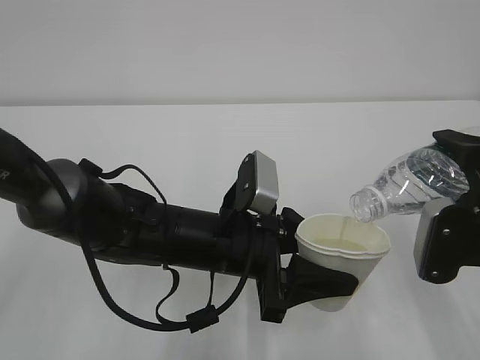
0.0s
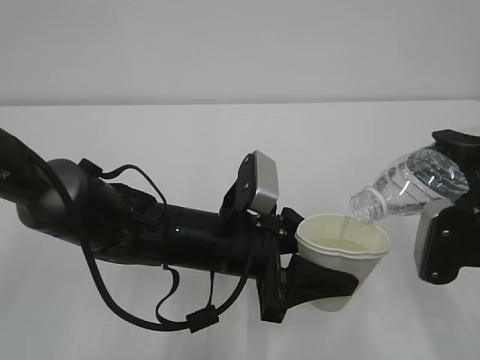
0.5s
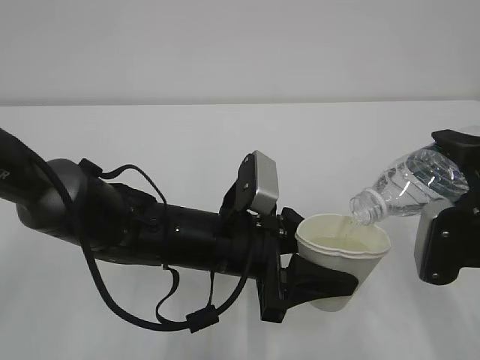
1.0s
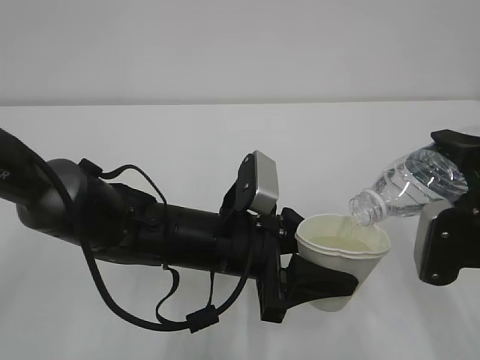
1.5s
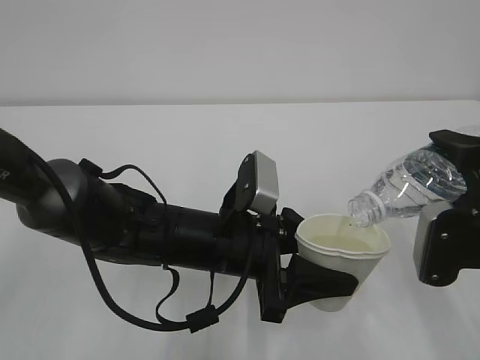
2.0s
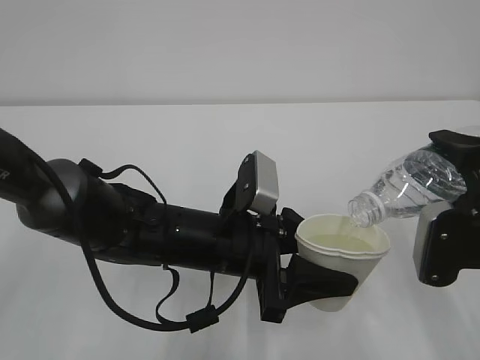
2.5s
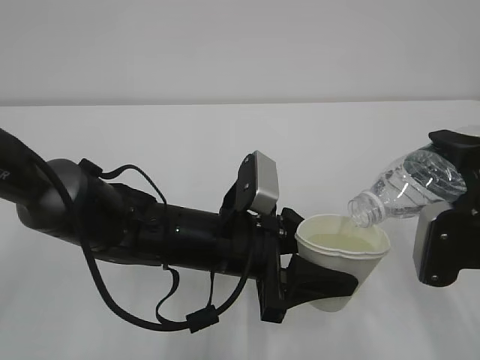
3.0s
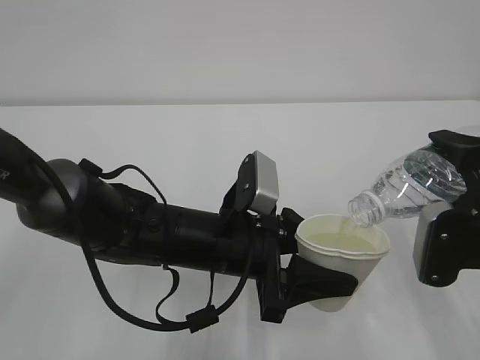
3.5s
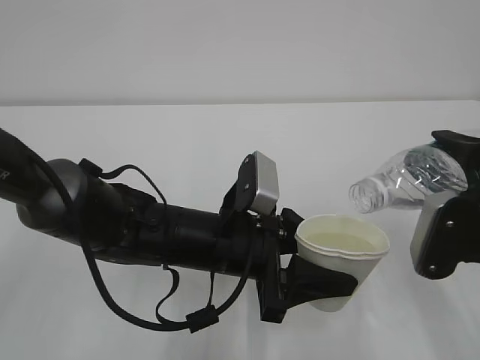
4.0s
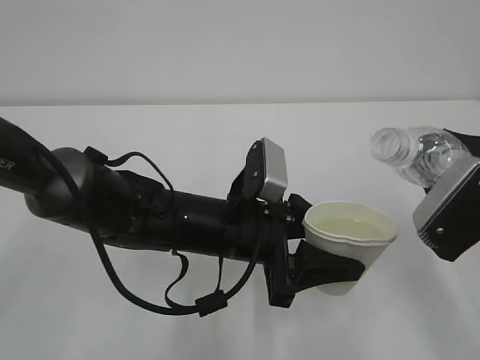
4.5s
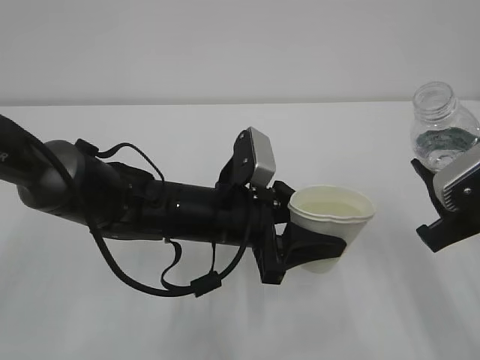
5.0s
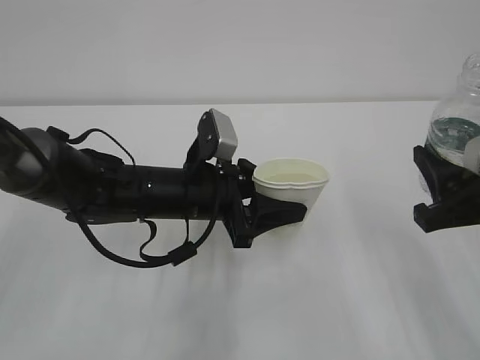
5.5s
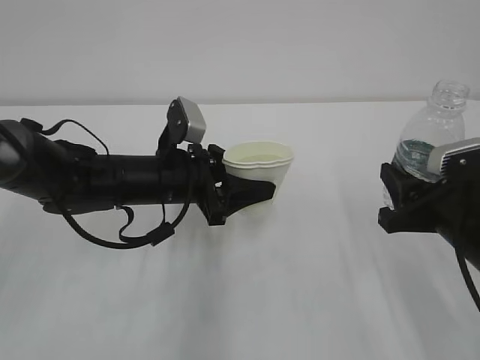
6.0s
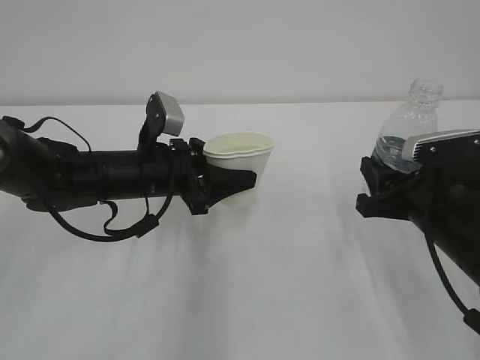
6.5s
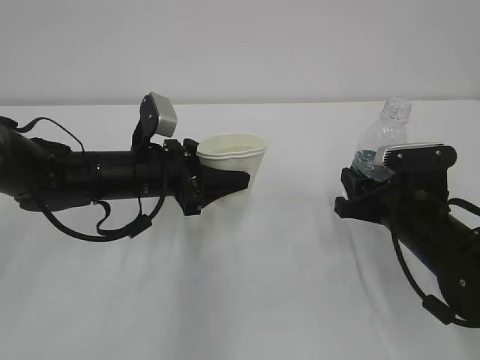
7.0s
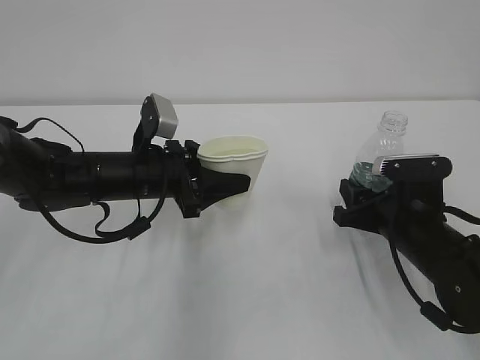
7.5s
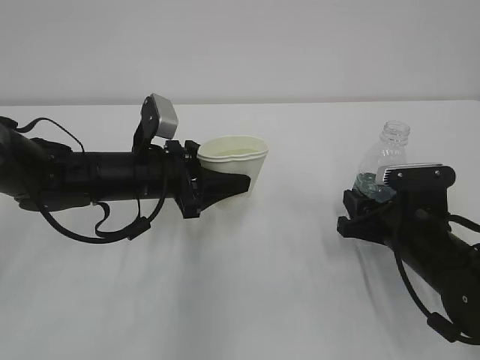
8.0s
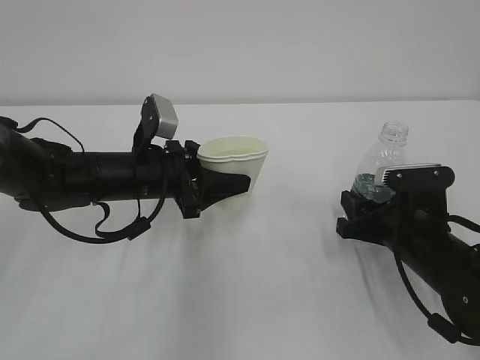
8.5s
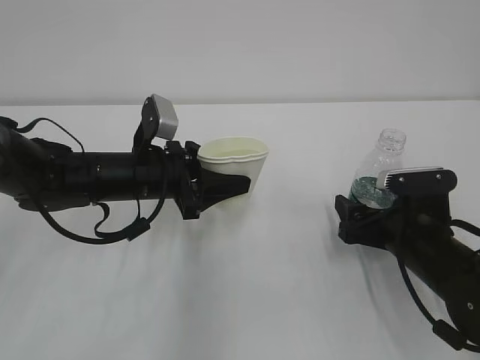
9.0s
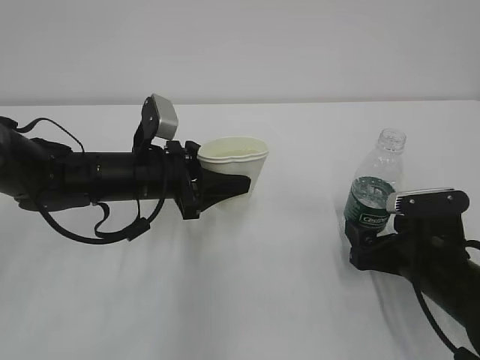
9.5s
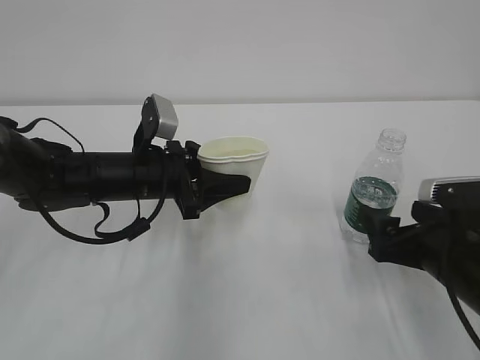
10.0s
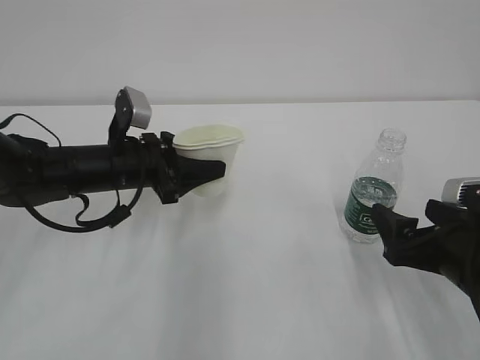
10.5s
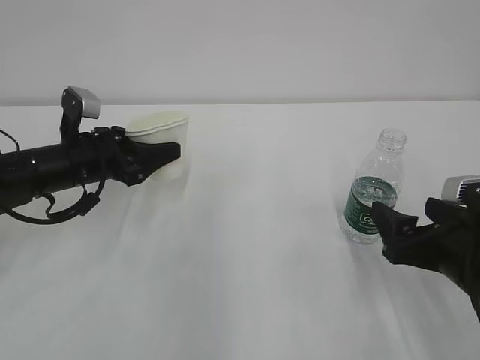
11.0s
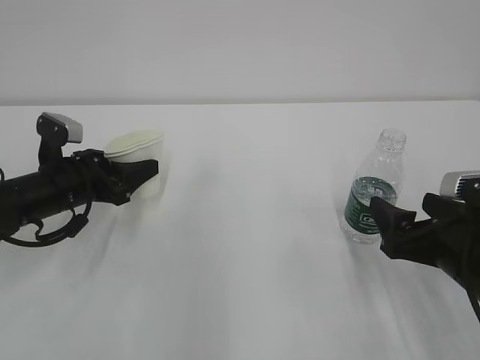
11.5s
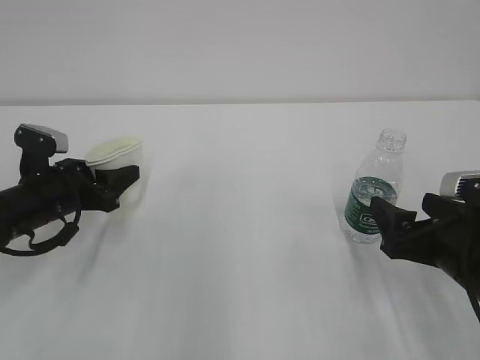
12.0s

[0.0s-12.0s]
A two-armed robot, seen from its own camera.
0.0s to 2.0s: The two grippers keep their place.
2.0s to 4.0s: The grippers make only small movements.
4.0s to 6.0s: The left gripper shifts some 10 cm forward and to the left.
6.0s to 8.0s: The right gripper goes about 10 cm downward and forward.
8.0s to 10.0s: The right gripper travels backward by approximately 5 cm, and opens up.
10.0s to 12.0s: The left gripper heads to the left, covering approximately 10 cm.

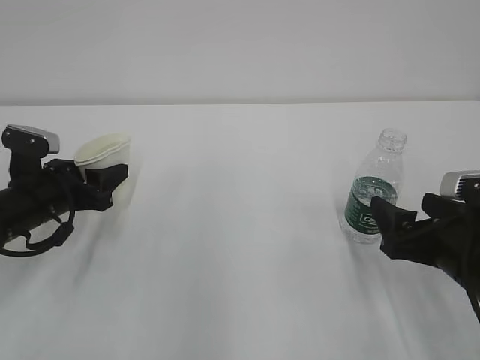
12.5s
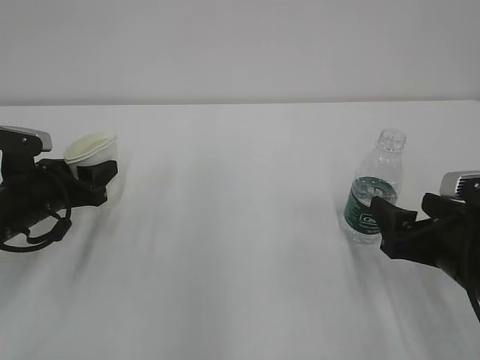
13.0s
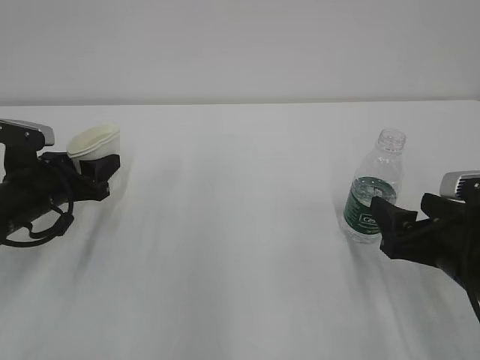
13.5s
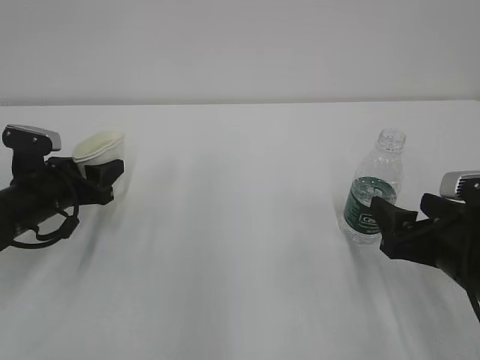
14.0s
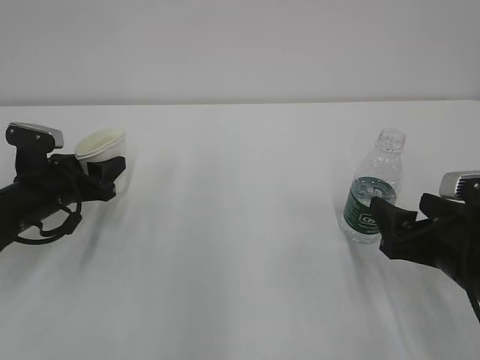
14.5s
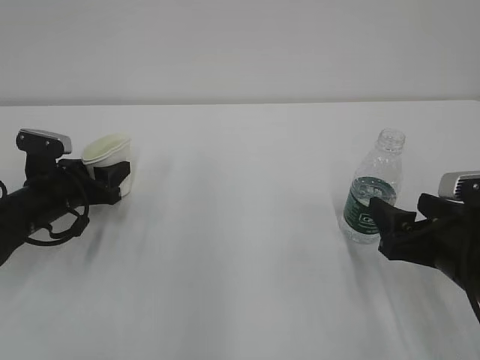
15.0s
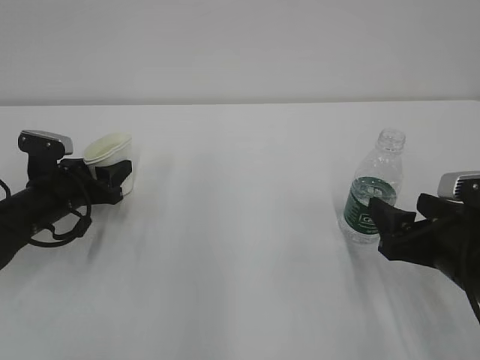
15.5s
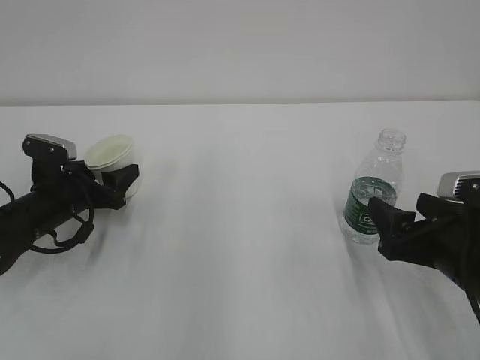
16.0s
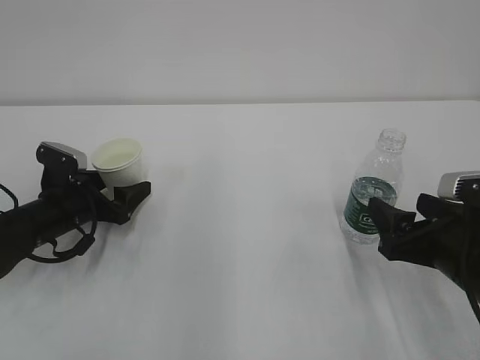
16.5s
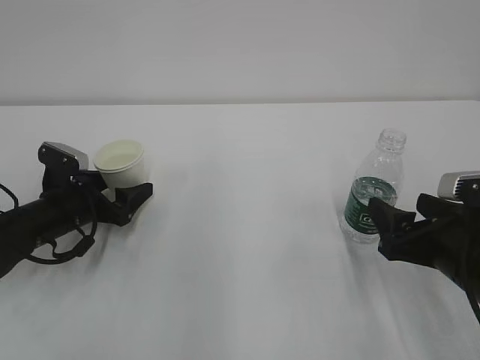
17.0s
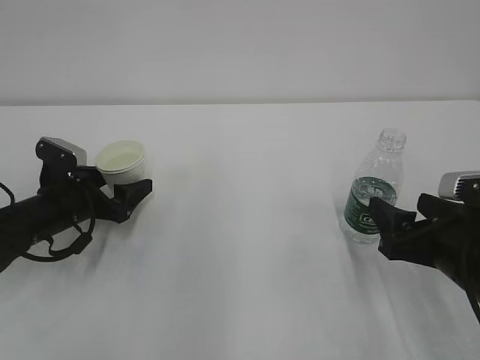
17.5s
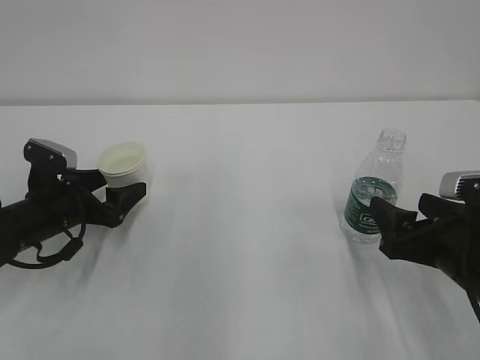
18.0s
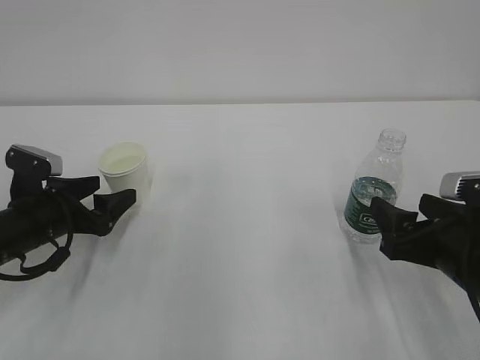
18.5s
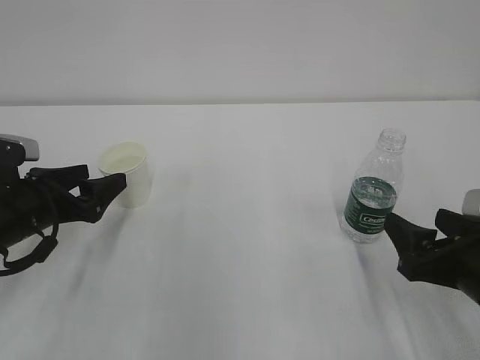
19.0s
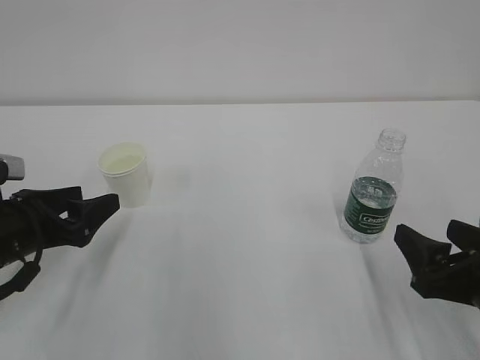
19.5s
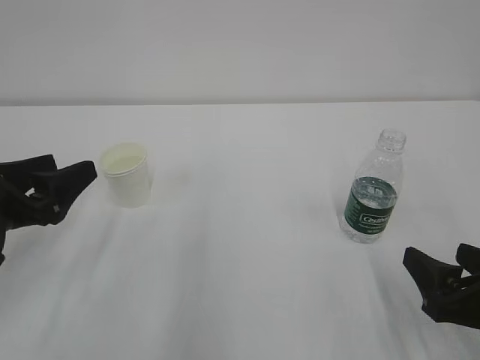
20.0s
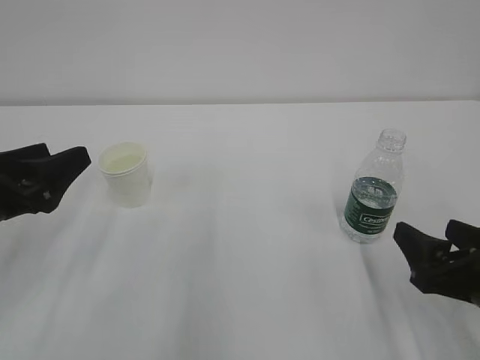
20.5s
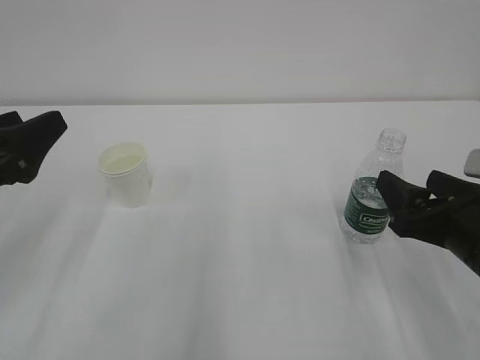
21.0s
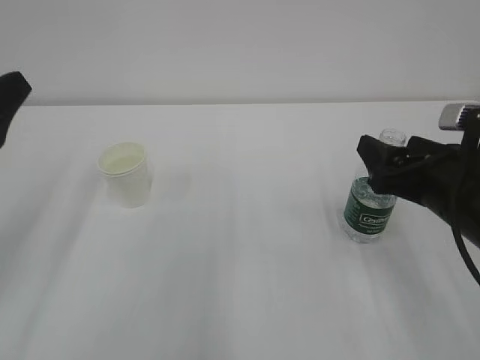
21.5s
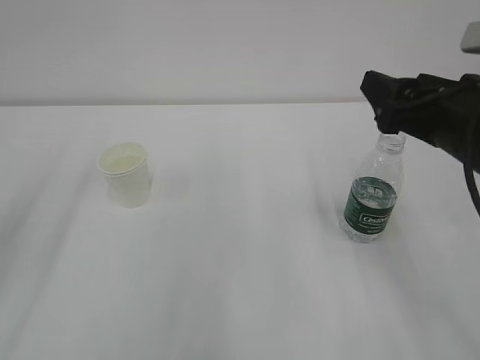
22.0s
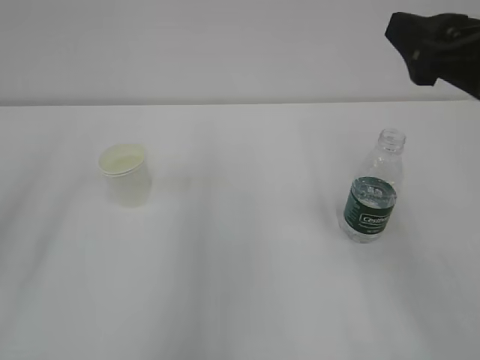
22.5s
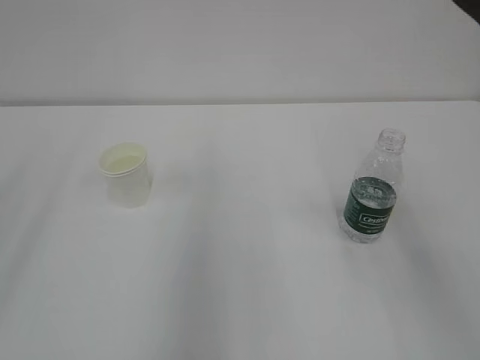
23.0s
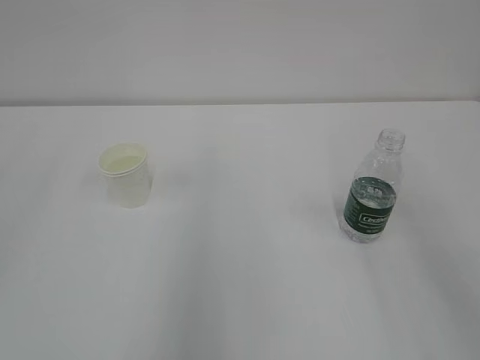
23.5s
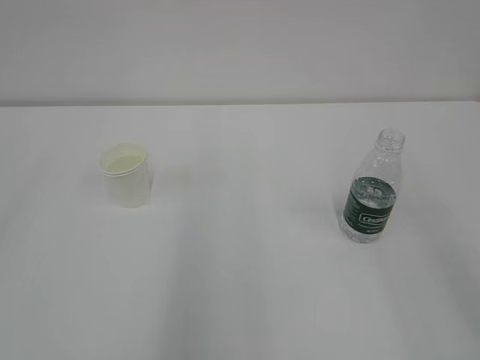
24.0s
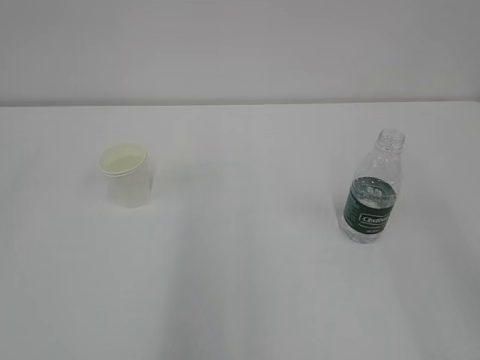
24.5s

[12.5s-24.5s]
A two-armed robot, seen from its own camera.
12.5s to 14.5s: The grippers make only small movements.
14.5s to 16.5s: The left gripper opens its fingers.
16.5s to 18.5s: The left gripper ends up roughly 5 cm from where it was.
18.5s to 20.5s: The left gripper goes some 15 cm upward and backward.
20.5s to 22.5s: Both grippers move upward, about 15 cm.
22.5s to 24.5s: The right gripper travels backward by about 20 cm.
